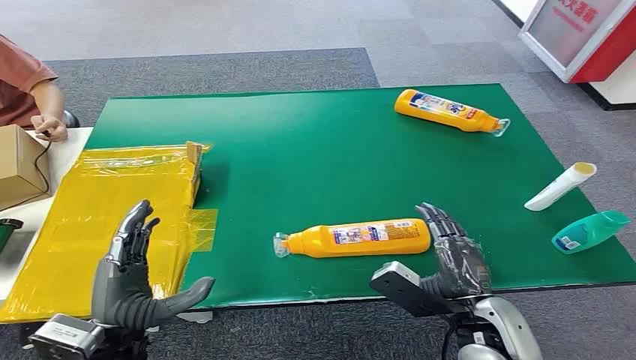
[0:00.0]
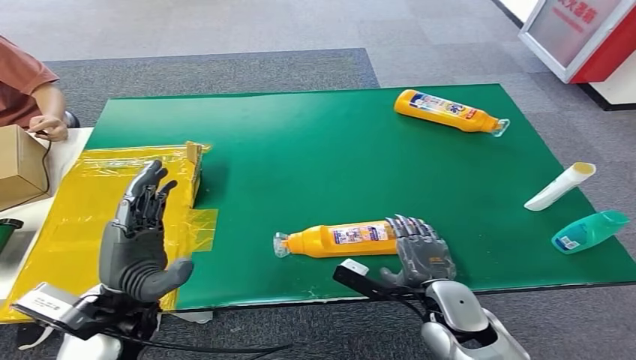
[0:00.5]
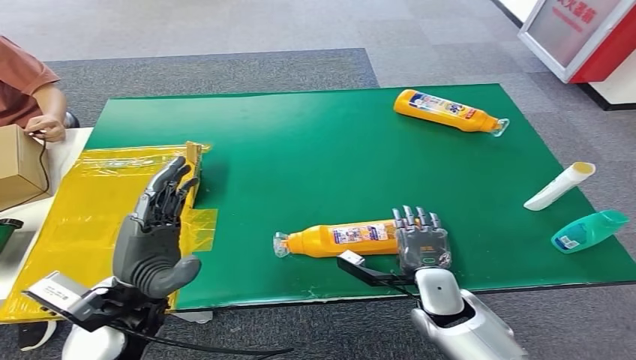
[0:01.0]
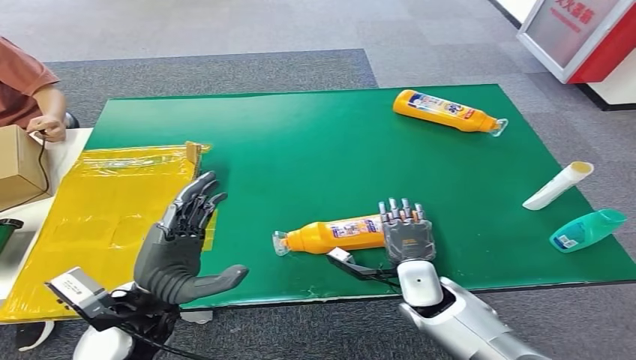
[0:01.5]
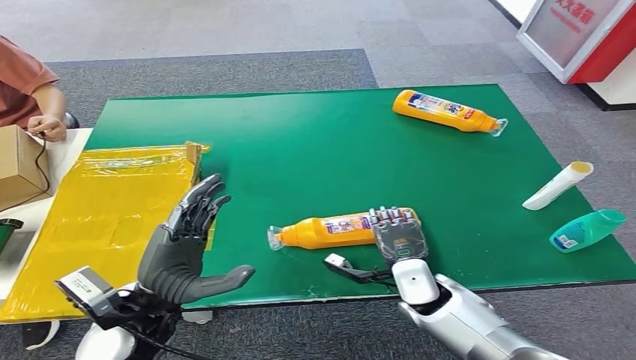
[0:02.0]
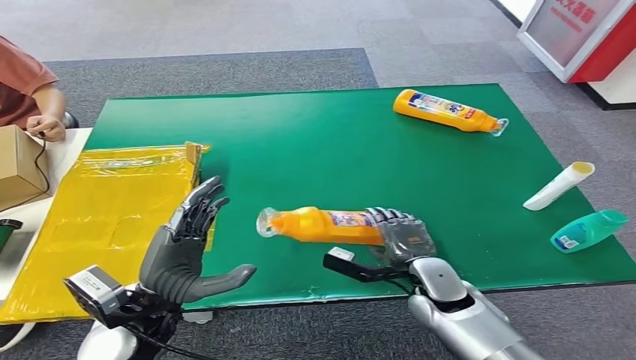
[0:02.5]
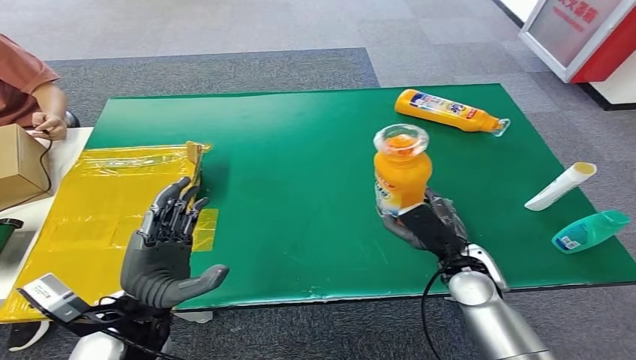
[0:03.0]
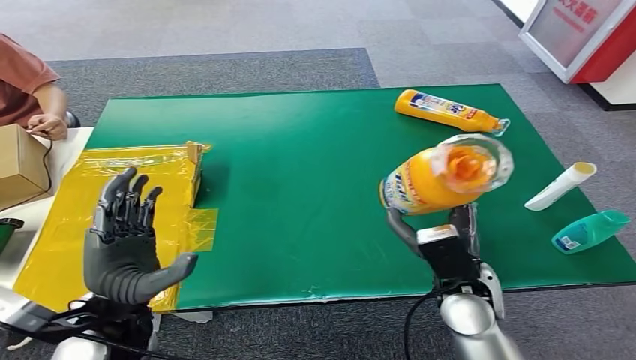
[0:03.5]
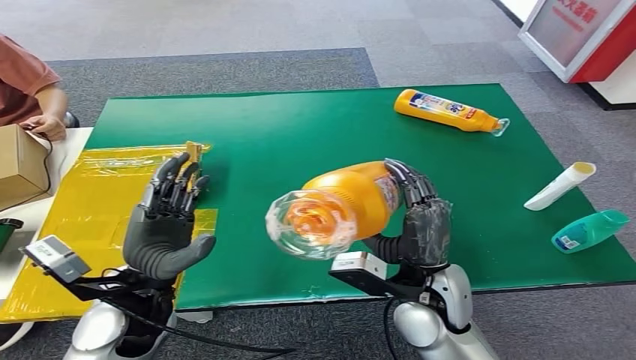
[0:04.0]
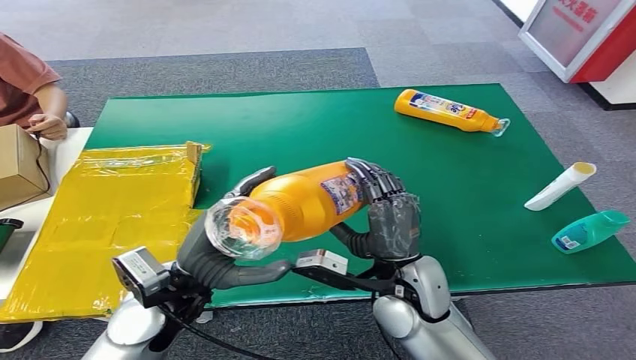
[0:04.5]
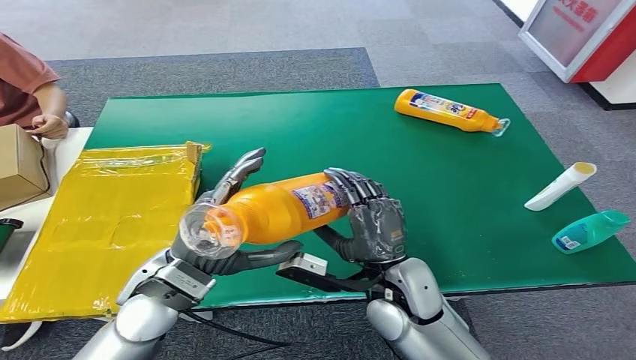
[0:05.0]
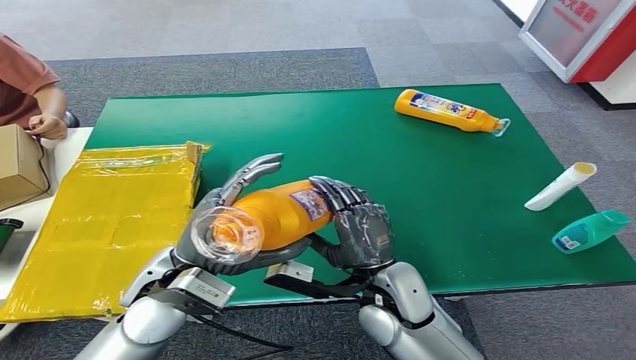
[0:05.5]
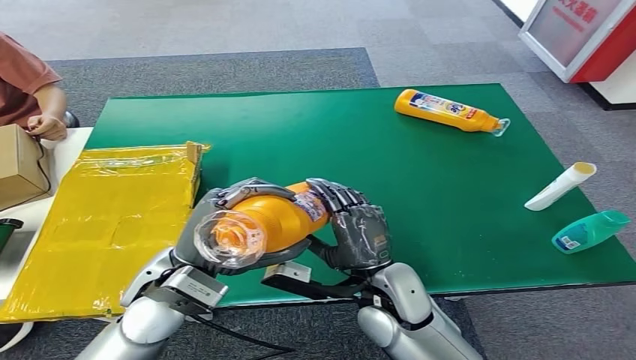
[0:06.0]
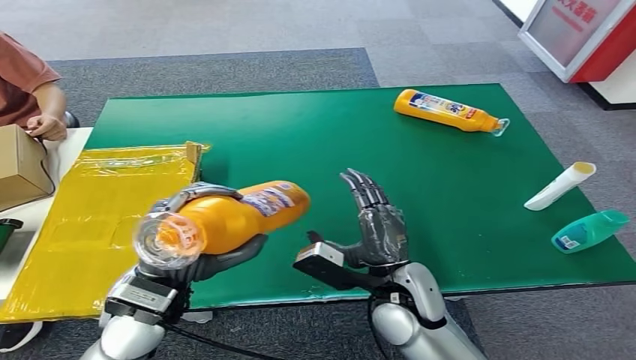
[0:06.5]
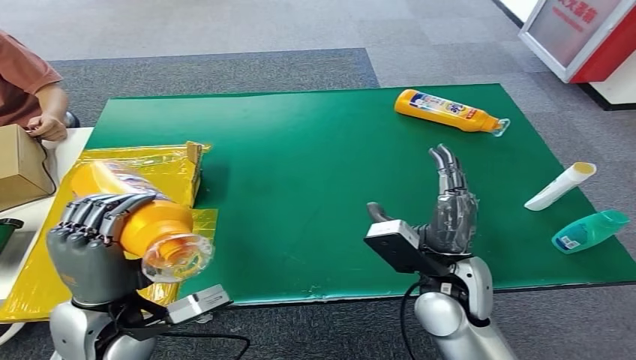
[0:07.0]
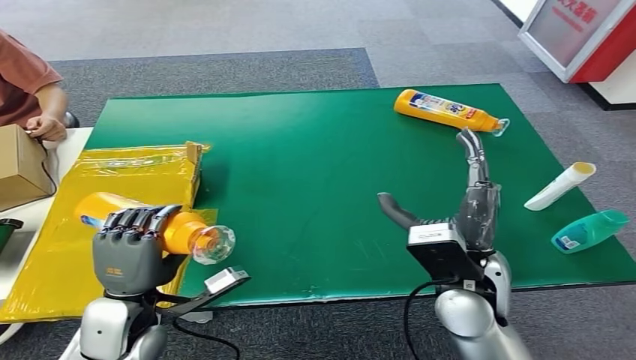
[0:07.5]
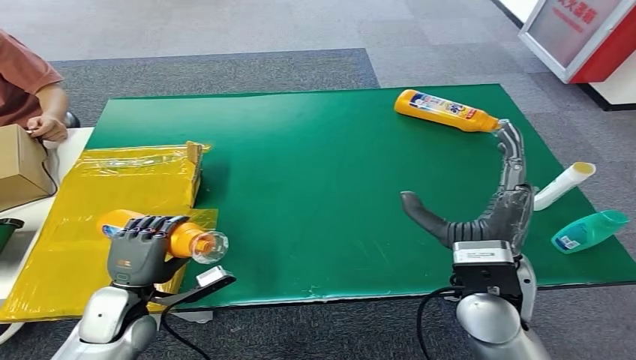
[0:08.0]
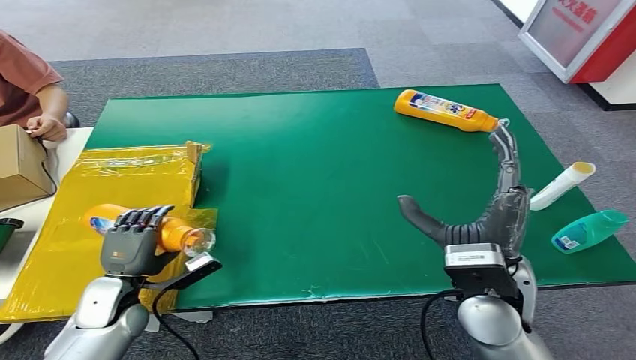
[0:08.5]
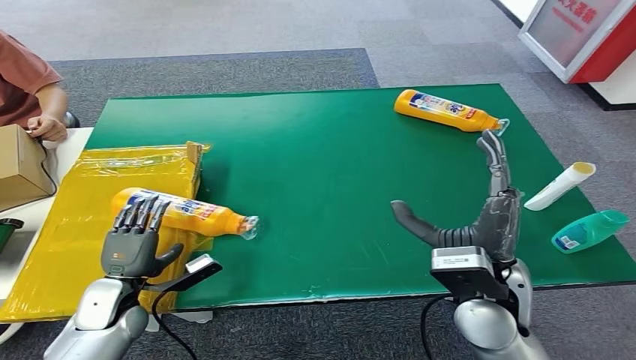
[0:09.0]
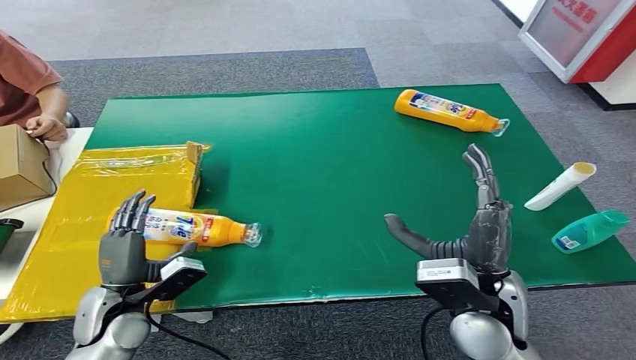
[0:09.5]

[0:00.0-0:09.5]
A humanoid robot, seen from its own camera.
Step, 0:00.0 to 0:03.5: Pick up the bottle from the table.
Step, 0:04.0 to 0:09.0: Turn the bottle to the front side.
0:07.5 to 0:09.5: The left hand shifts some 5 cm downward.

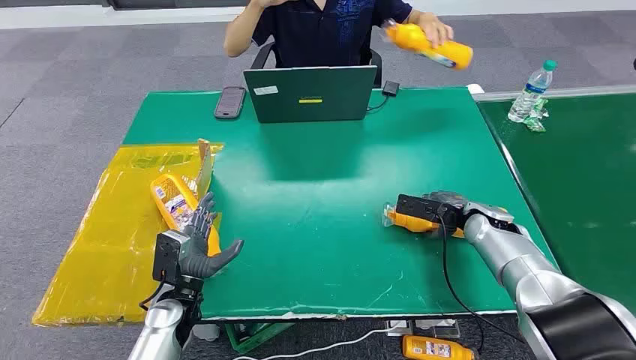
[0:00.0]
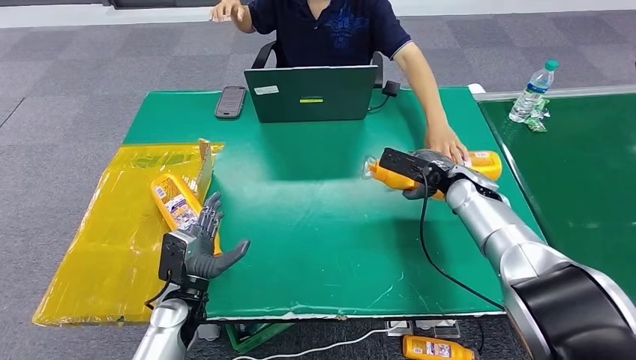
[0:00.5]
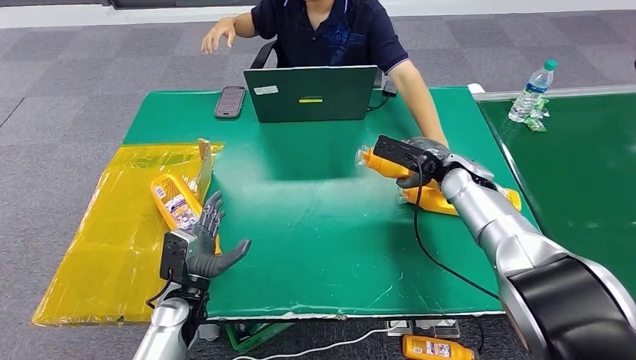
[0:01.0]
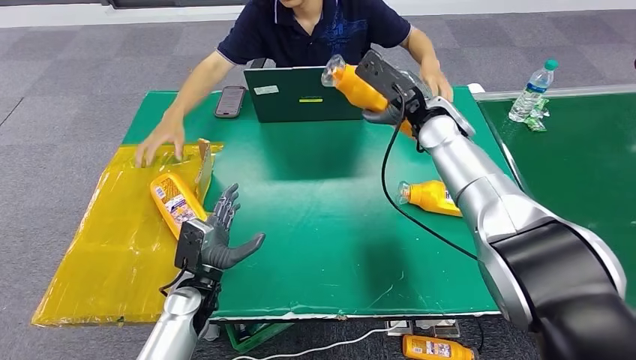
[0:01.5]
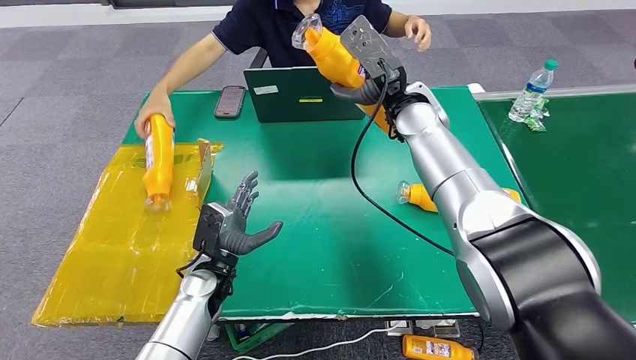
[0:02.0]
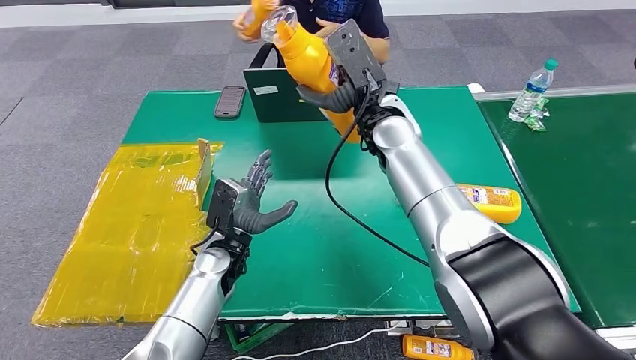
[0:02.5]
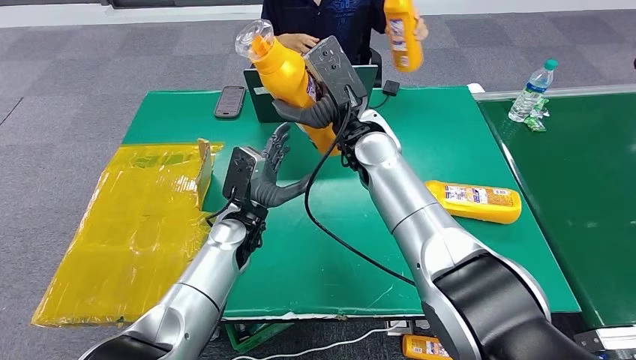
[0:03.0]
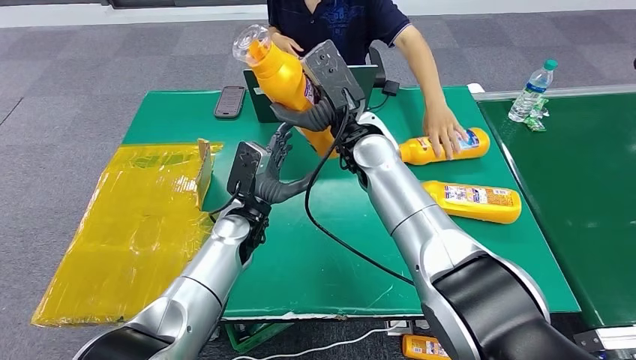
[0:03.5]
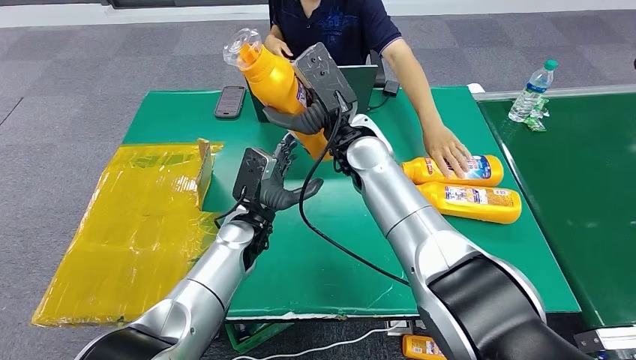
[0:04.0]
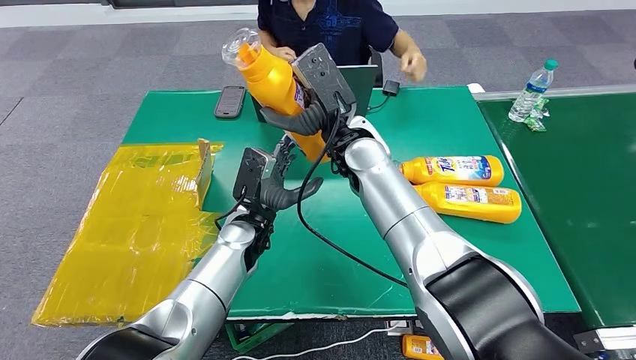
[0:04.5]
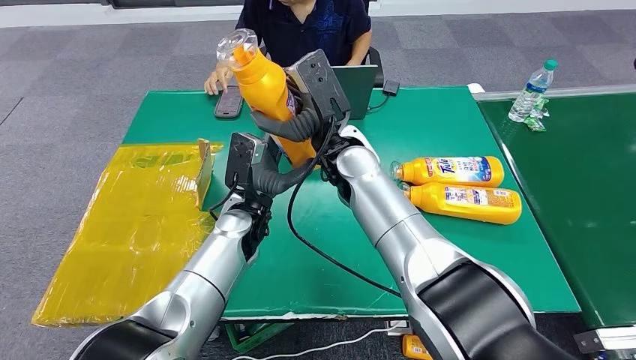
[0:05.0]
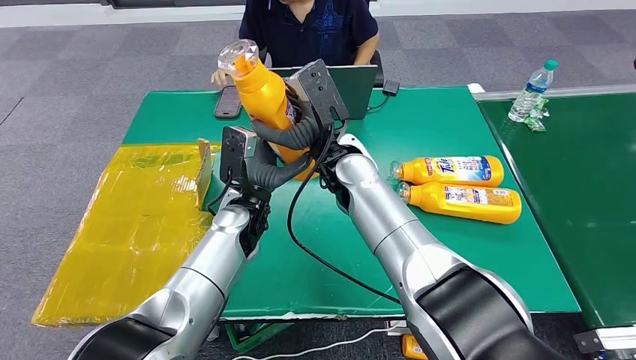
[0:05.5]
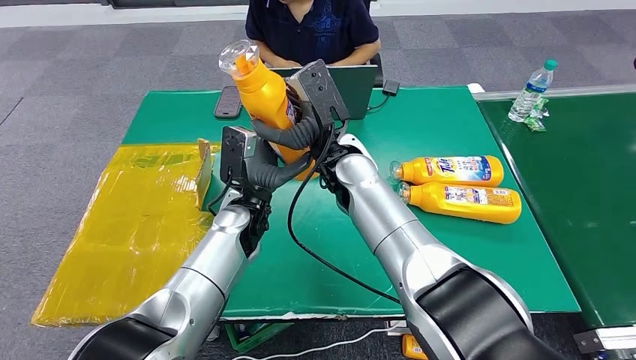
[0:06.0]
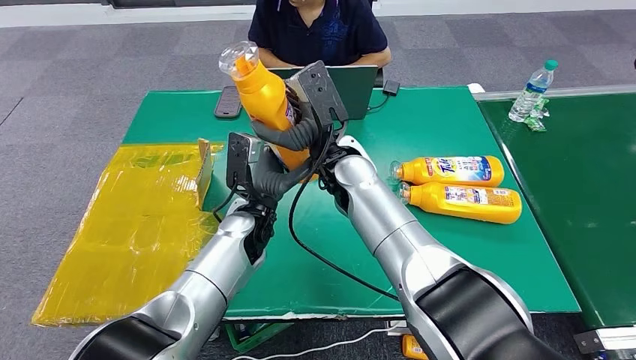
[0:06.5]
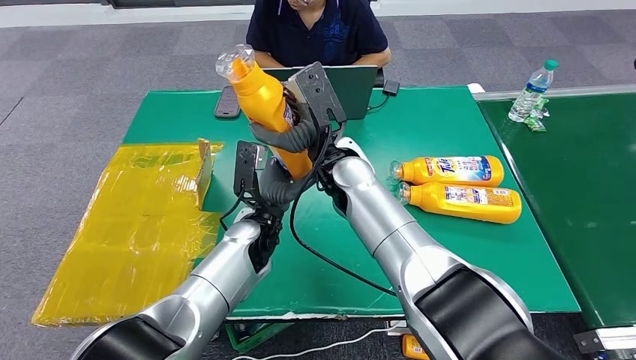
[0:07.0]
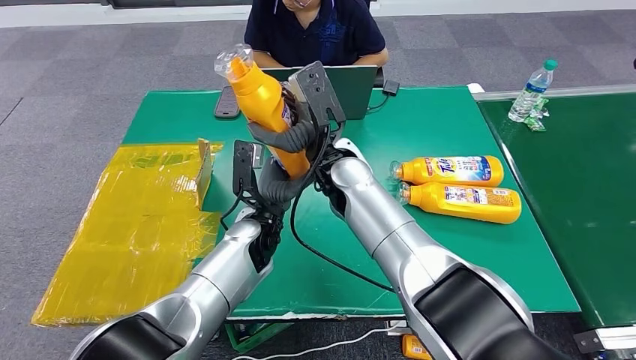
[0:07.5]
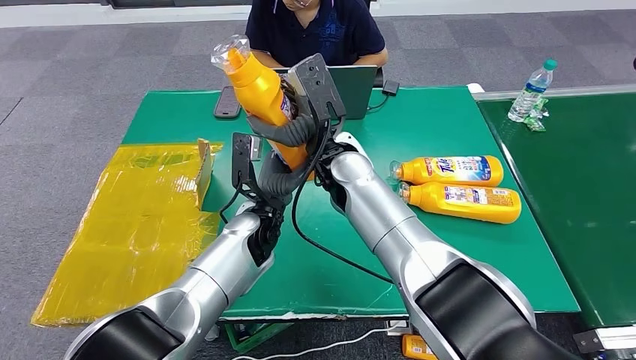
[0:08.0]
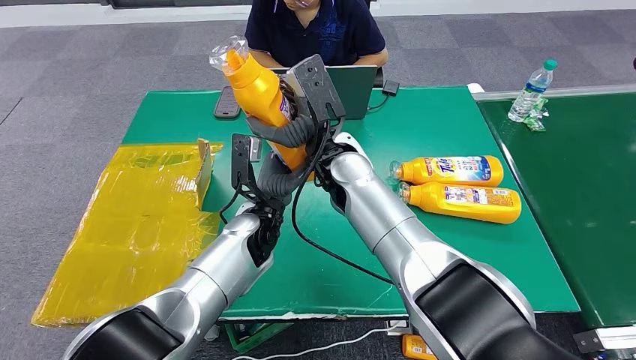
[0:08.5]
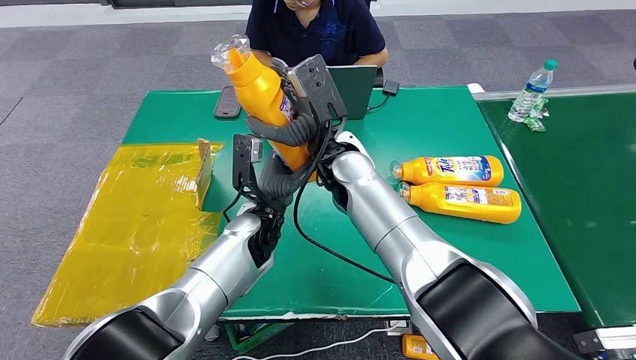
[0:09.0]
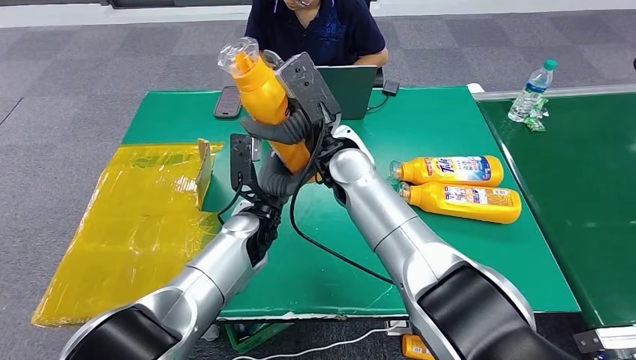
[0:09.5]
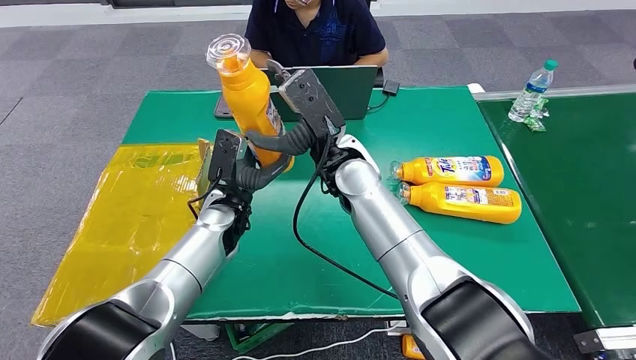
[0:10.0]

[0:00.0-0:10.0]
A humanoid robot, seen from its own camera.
Step, 0:00.0 to 0:01.5: Pick up the bottle from the table.
0:06.0 to 0:08.0: The hands stay close to where they were, moving slightly.
0:08.0 to 0:10.0: The left hand shifts some 5 cm to the left.

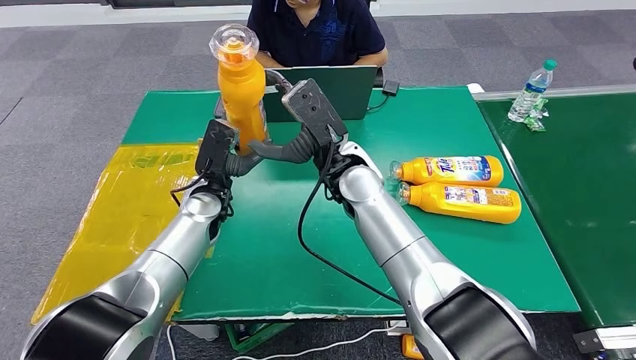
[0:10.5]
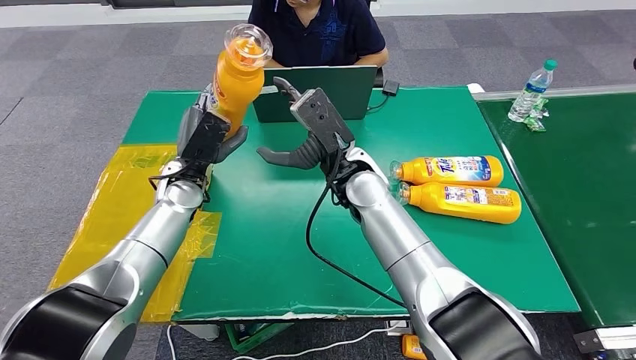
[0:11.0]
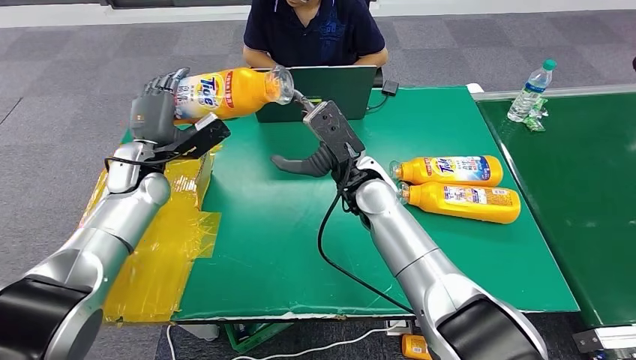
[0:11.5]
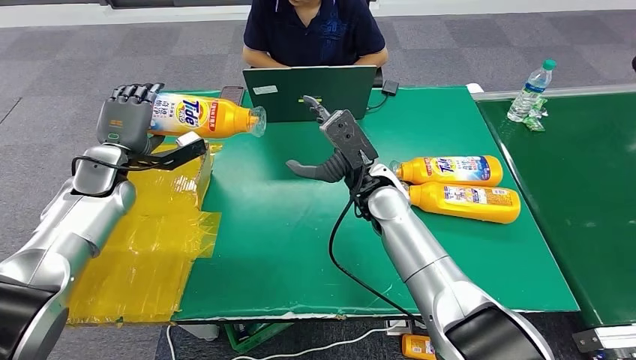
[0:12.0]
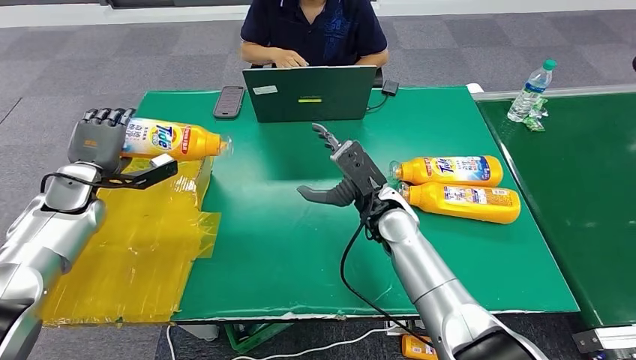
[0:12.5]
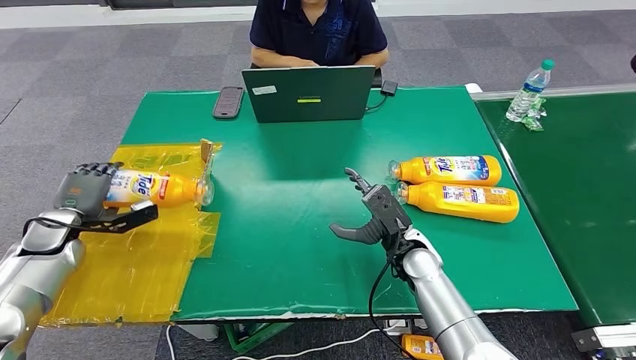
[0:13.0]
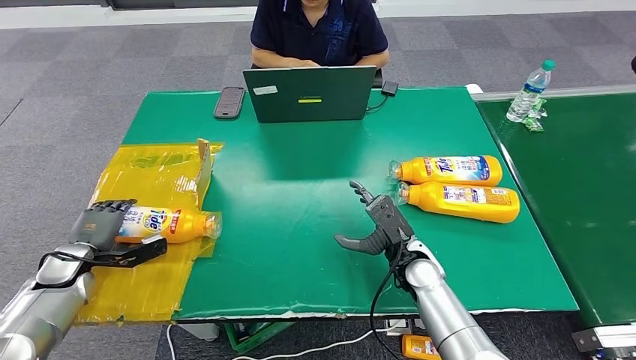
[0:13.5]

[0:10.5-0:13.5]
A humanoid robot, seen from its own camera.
Step, 0:10.5 to 0:13.5: Turn the bottle to the front side.
